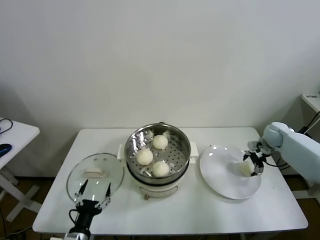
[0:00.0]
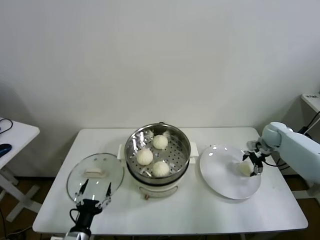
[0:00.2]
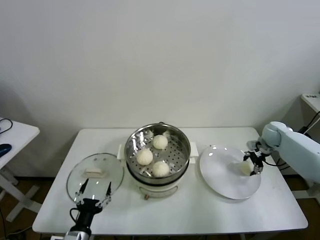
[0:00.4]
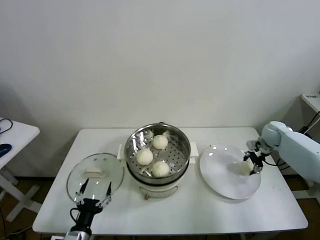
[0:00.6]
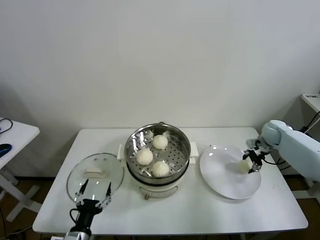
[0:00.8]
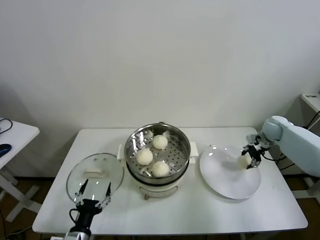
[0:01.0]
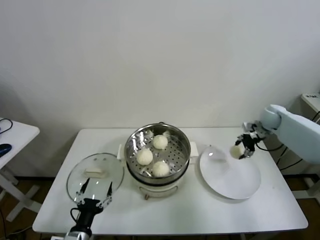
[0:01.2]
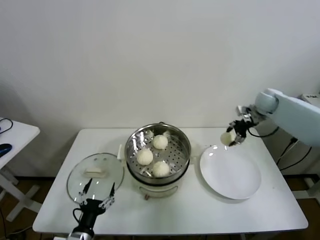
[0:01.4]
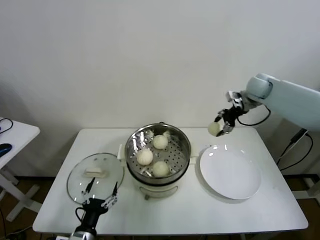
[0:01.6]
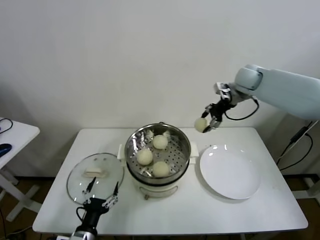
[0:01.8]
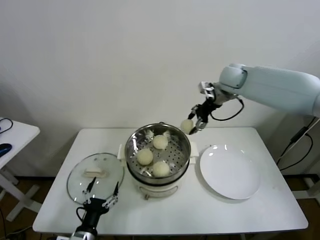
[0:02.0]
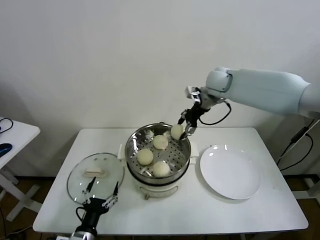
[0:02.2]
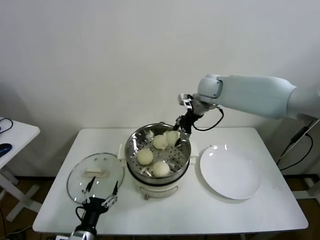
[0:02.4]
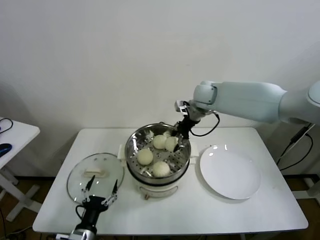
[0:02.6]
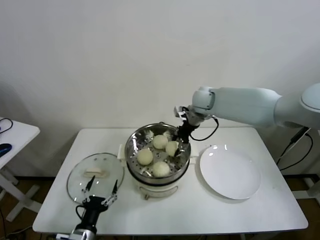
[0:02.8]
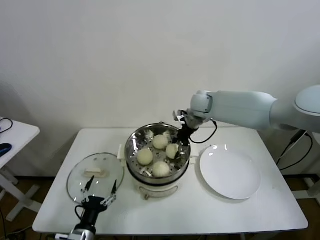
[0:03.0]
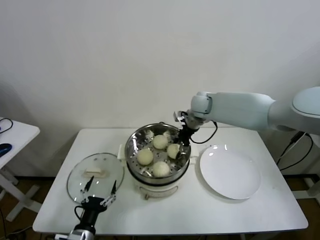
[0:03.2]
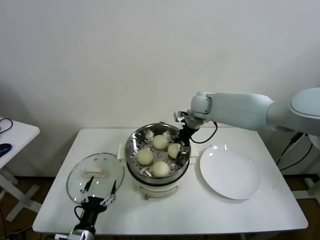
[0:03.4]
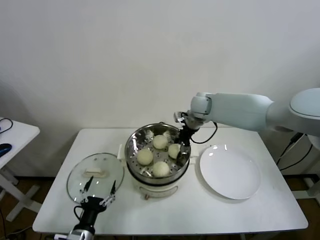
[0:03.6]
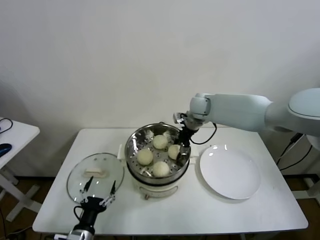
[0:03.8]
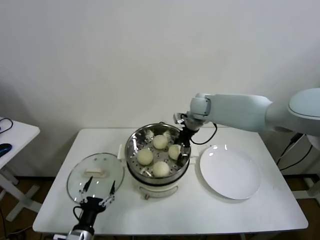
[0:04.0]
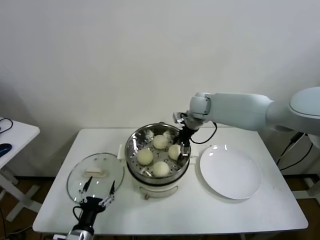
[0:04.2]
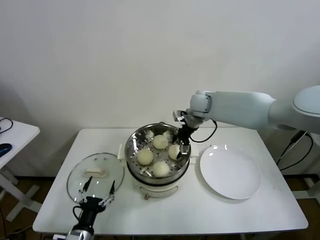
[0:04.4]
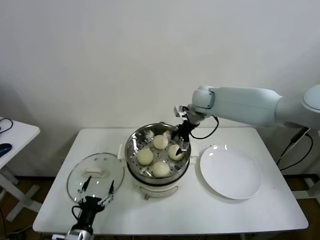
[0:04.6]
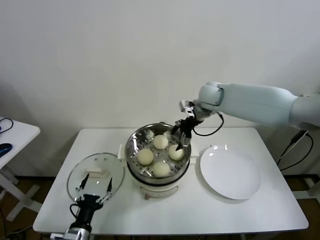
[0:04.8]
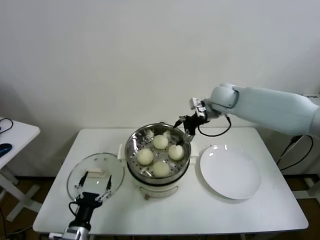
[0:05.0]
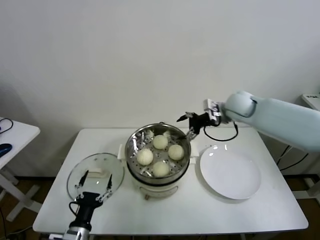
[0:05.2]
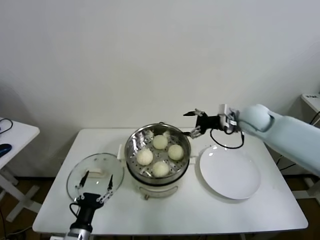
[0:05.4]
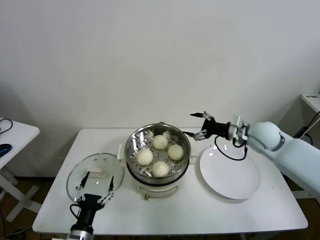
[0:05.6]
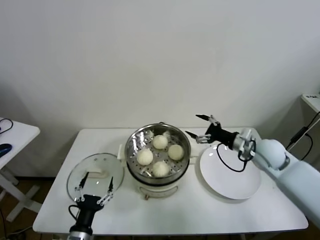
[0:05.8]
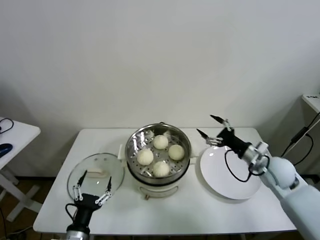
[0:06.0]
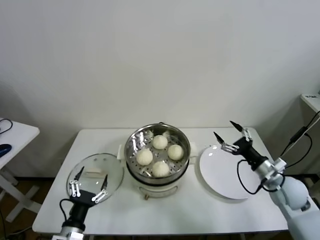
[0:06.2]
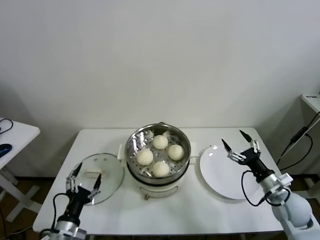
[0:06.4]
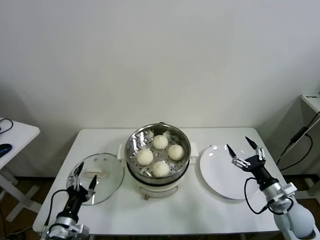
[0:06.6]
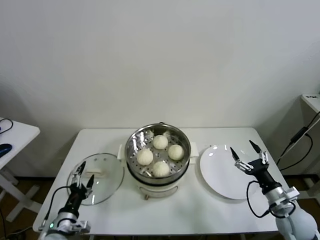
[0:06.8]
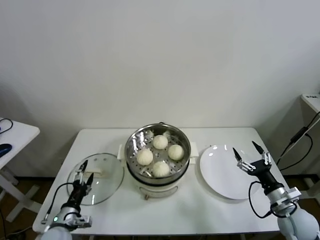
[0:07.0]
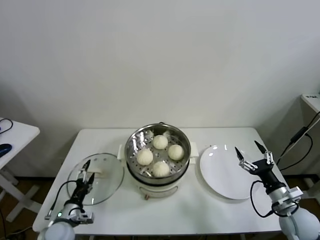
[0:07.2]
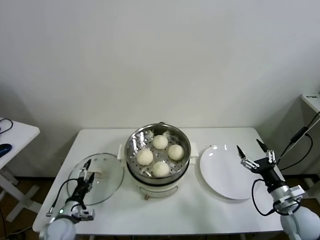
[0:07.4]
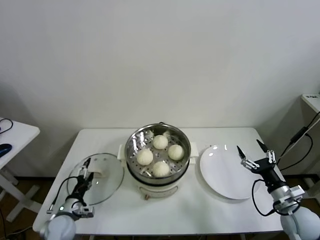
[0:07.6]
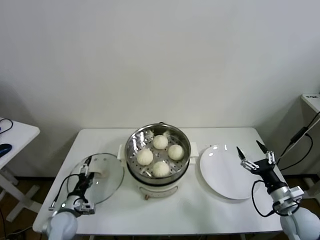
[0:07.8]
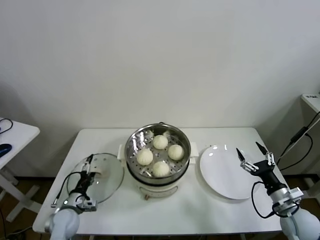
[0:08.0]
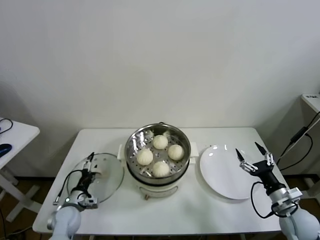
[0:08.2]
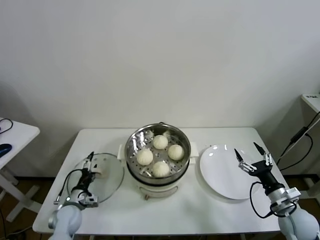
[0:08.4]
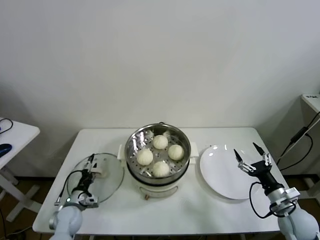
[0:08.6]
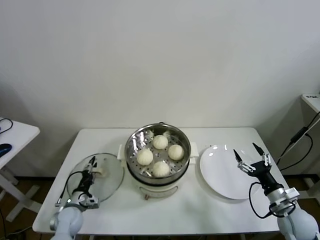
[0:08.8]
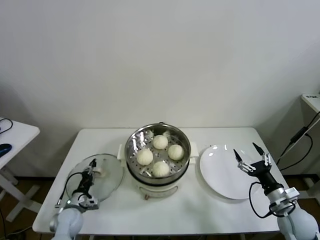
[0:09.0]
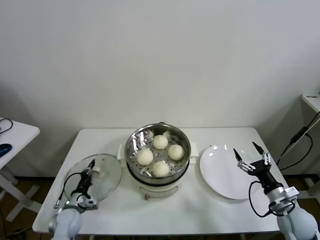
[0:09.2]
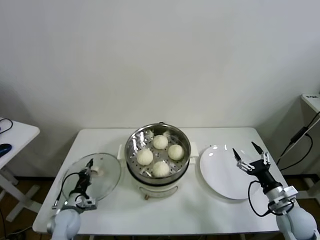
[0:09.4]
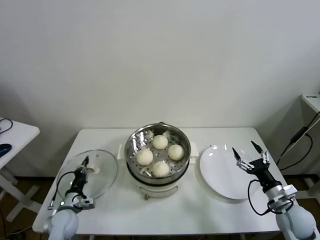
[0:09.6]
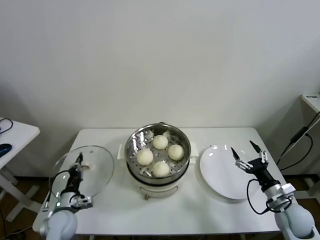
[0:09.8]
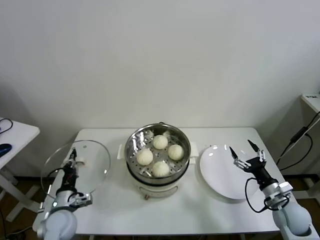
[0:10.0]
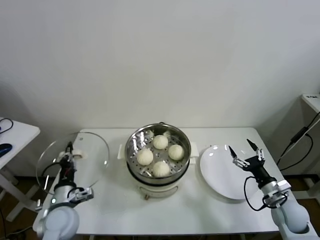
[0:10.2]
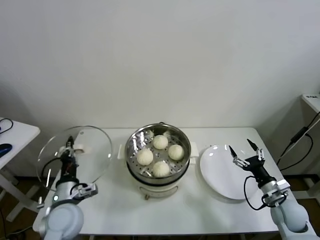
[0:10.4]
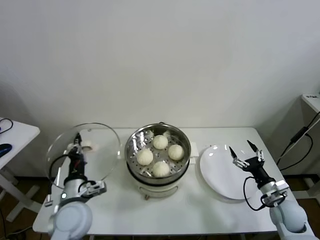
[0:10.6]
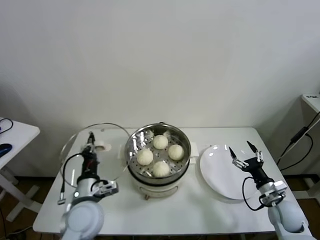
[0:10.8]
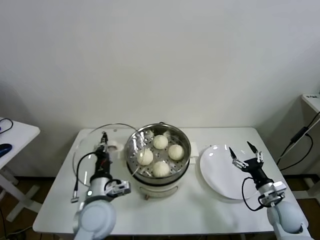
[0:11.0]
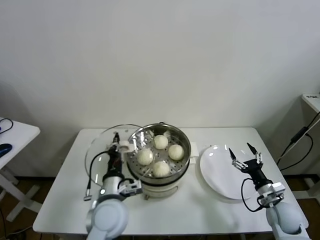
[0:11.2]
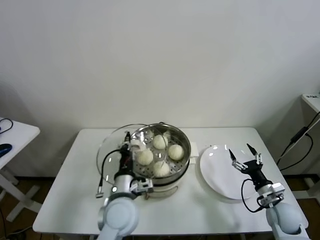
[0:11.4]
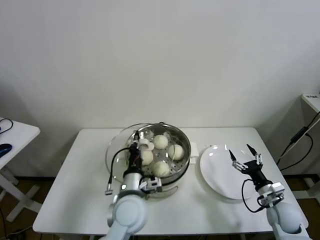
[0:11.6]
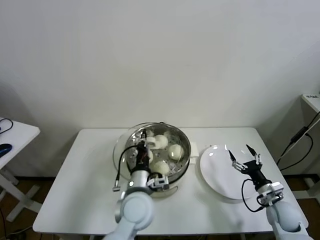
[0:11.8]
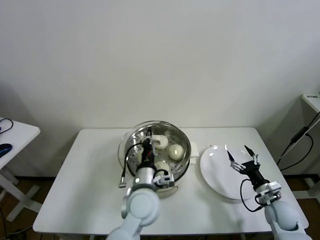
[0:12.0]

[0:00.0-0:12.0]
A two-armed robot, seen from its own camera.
Task of the whole recording: take steamed baozi put them in steamer.
Step, 0:00.4 to 0:04.2: Place the baozi on the steamer with right gripper.
Step, 0:04.4 to 0:09.0: Grasp the pot lid with left gripper.
0:00.0 to 0:01.6: The right gripper travels upward and to the left by about 25 cm, and closes.
0:01.6 to 0:03.0: The right gripper is displaced to the left by some 20 cm.
0:03.0 to 0:04.4: The right gripper opens its fingers.
0:04.4 to 0:06.0: The right gripper heads backward, to the right and downward, covering approximately 30 cm.
0:06.0 to 0:07.6: The left gripper moves forward, to the left and downward, about 15 cm. Meanwhile the right gripper heads backward, downward and to the right, covering roughly 15 cm.
0:07.6 to 0:09.0: The left gripper closes up.
0:09.0 to 0:10.4: The left gripper shifts approximately 15 cm upward and to the right.
0:10.4 to 0:12.0: The left gripper is displaced to the right by roughly 25 cm.

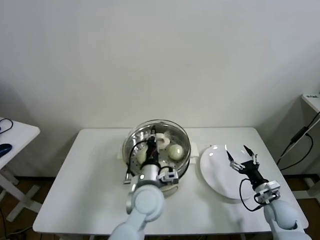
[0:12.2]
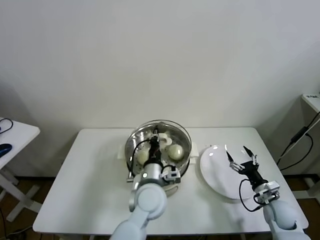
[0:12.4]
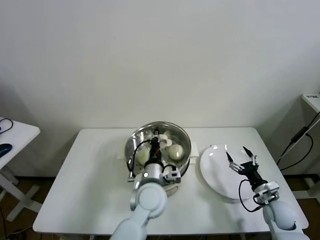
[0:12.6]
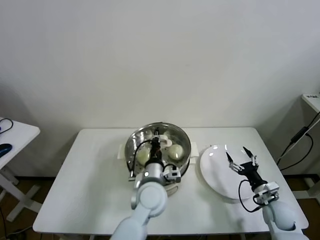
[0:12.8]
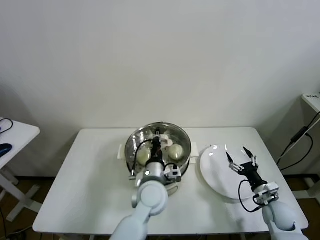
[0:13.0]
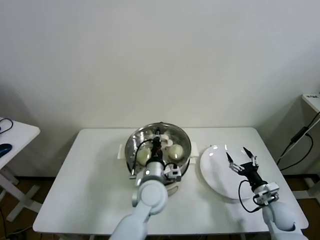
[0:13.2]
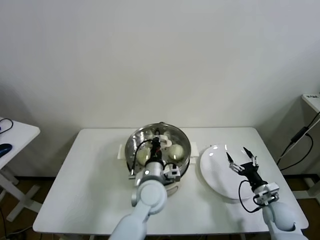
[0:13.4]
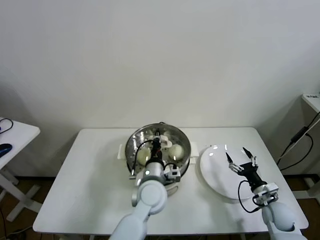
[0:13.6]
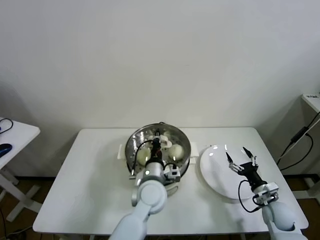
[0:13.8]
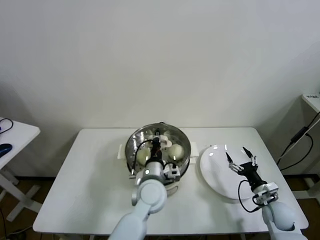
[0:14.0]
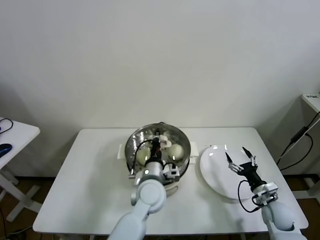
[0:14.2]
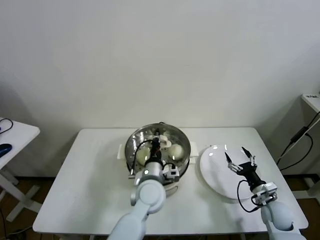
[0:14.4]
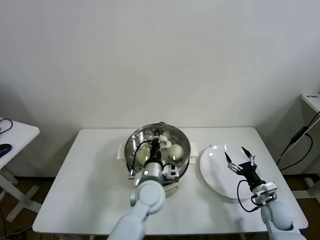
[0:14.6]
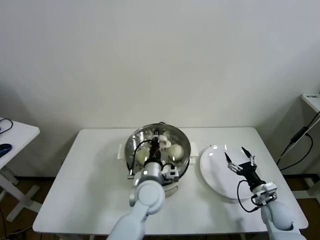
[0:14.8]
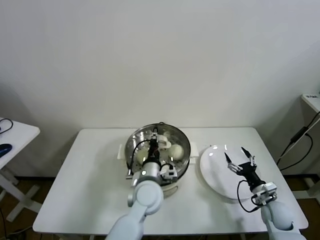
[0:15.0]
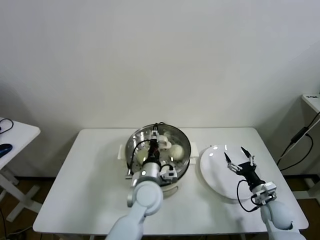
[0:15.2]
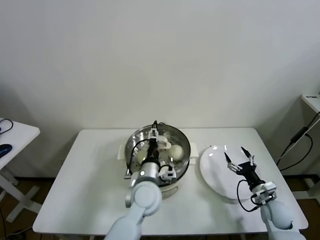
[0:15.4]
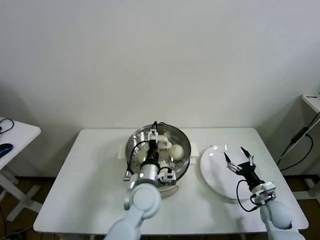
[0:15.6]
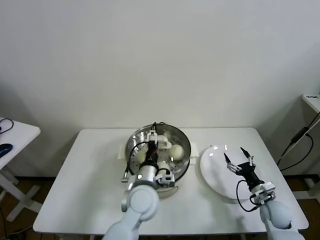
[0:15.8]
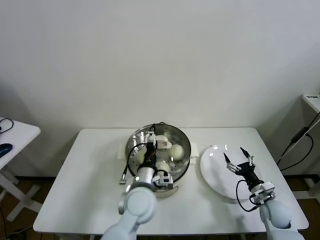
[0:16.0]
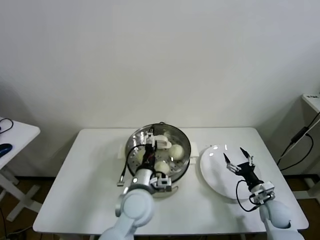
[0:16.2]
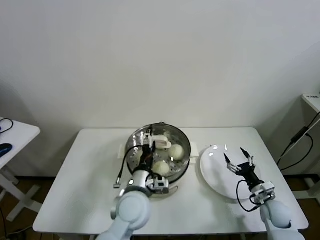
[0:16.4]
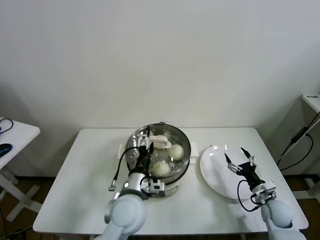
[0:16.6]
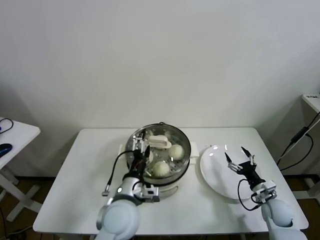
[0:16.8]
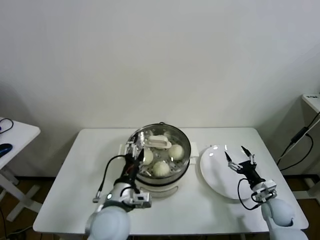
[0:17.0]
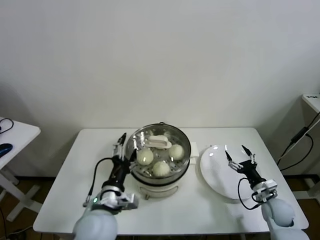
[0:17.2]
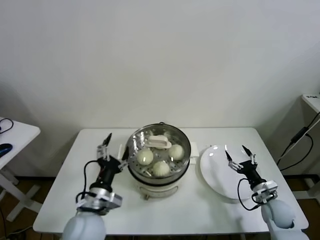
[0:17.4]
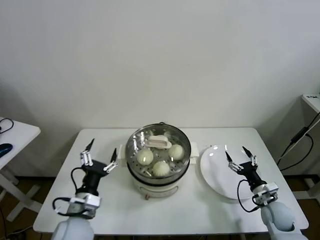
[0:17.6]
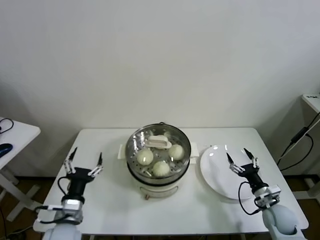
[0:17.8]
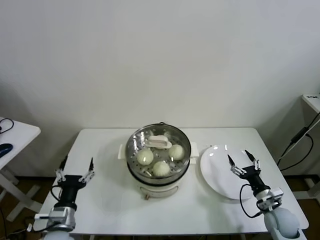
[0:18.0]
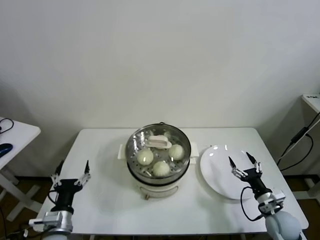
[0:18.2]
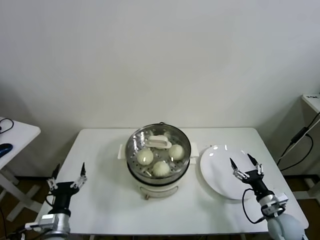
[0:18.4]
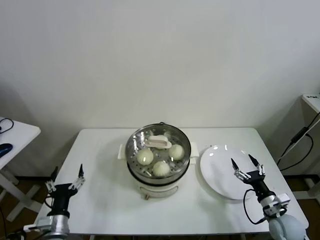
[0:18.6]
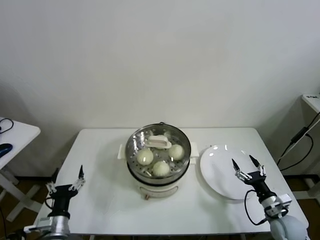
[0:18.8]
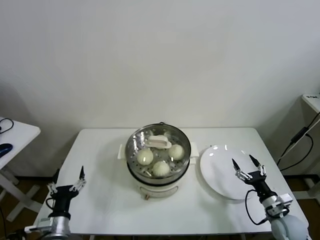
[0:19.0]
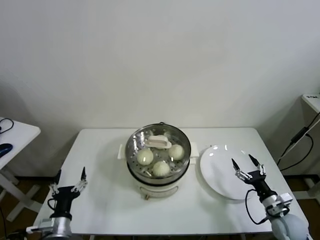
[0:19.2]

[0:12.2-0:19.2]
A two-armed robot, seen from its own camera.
Task of the whole recording: take steamed baozi put them in steamer.
Step, 0:12.2 to 0:15.6: Place the pot lid on the steamer with left gripper.
0:12.2 to 0:13.6: The grippers make only small movements.
0:13.6 to 0:15.0: Both grippers stay put.
0:15.0 to 0:16.4: The left gripper moves about 5 cm, and opens up.
0:16.4 to 0:17.8: The left gripper travels to the left by about 20 cm.
0:17.8 to 0:19.2: The left gripper travels downward and to the left by approximately 10 cm.
